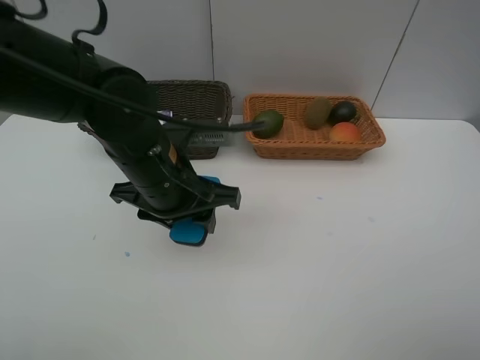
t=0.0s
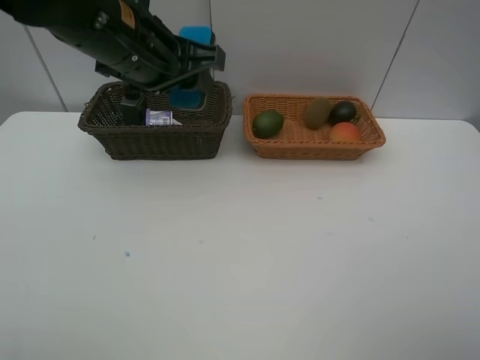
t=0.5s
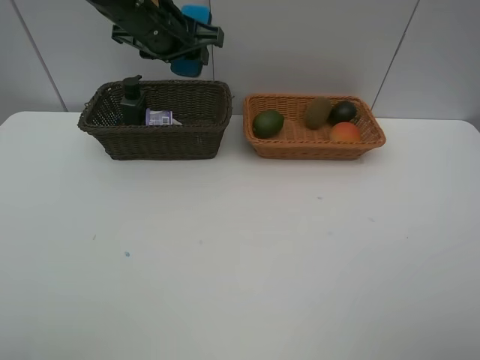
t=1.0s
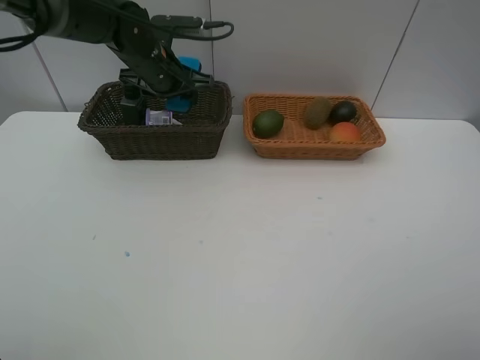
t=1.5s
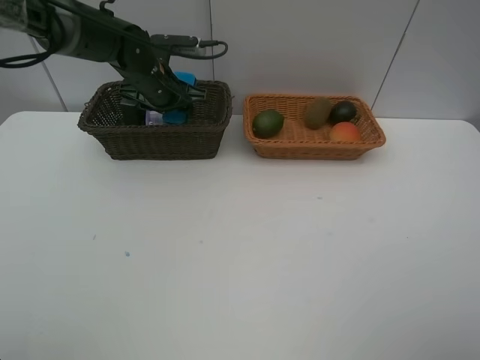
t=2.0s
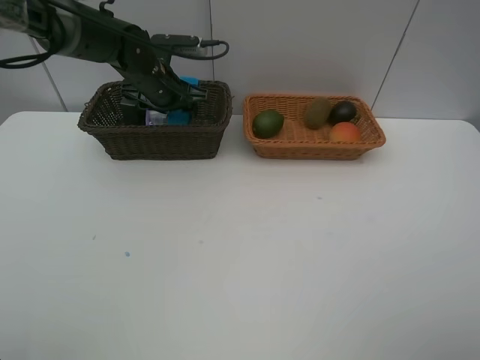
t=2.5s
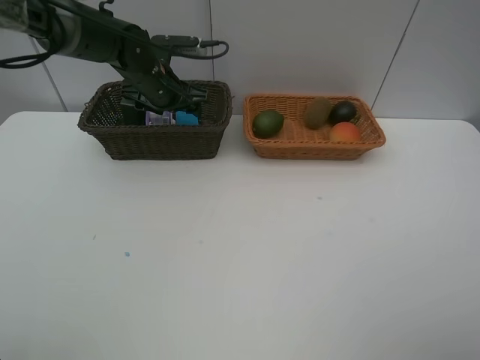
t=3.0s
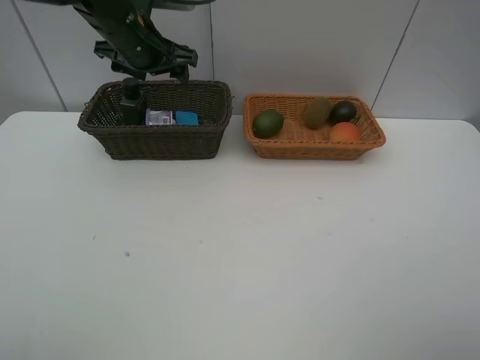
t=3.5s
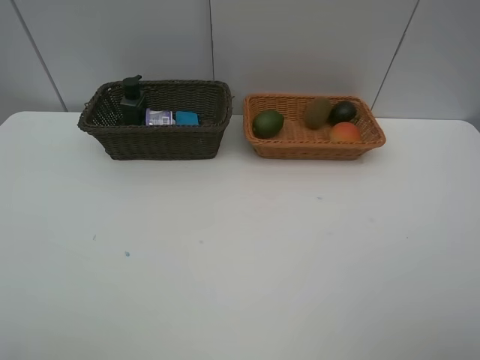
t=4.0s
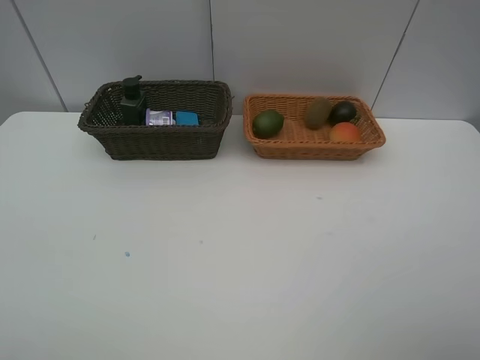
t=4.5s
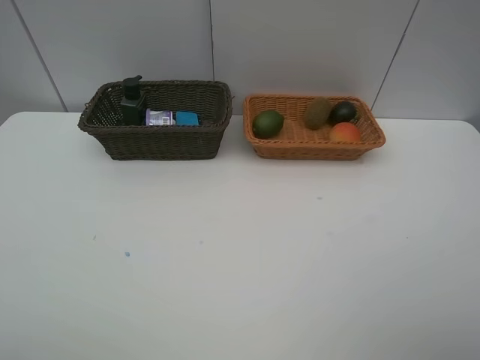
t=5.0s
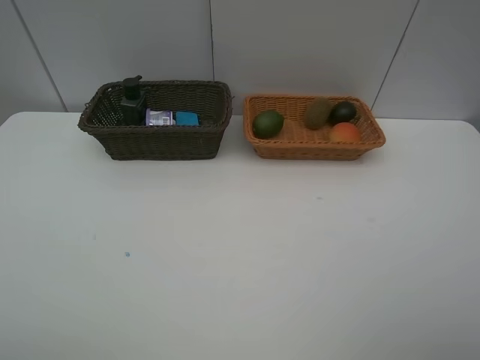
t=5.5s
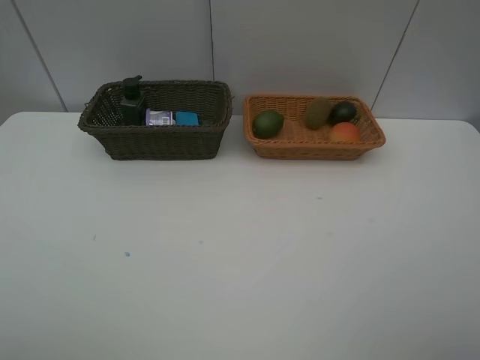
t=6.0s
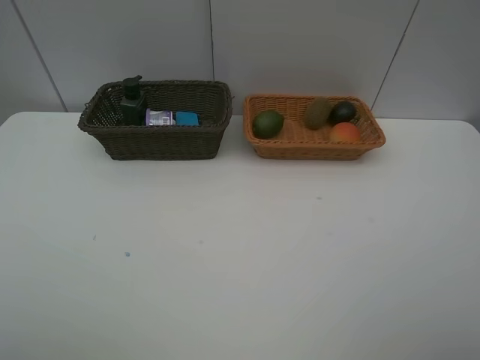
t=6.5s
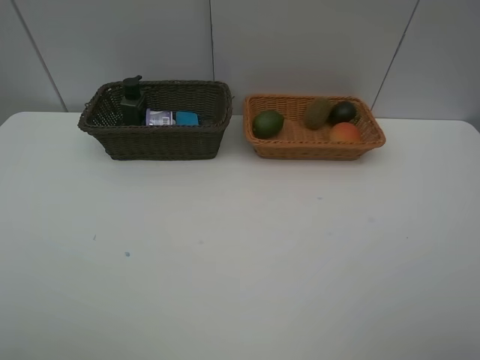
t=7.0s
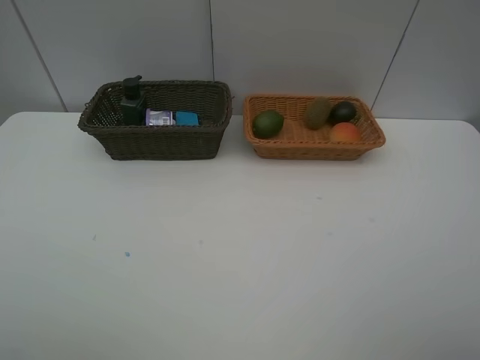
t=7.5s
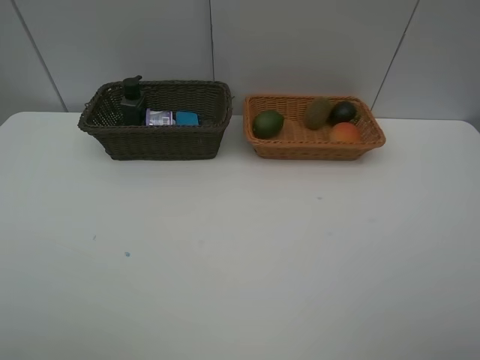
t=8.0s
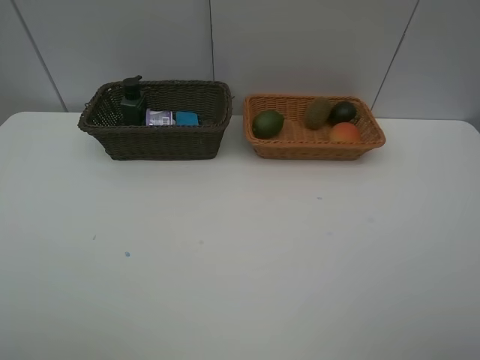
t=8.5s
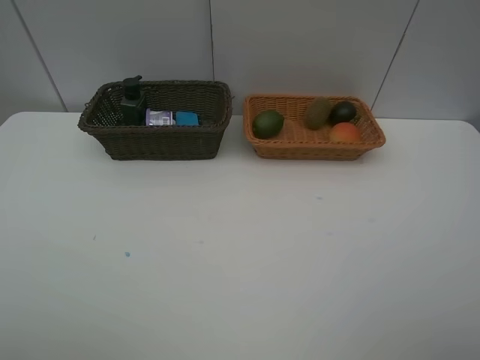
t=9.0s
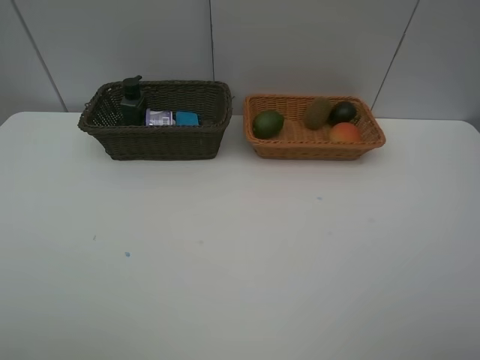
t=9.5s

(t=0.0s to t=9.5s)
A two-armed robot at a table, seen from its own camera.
Task of the whole recording: Place multiple objects separately in different baskets.
Step, t=0.0s - t=3.0s: Place the blackboard eraser in the dark basket with left gripper.
t=0.0s - t=2.0s: The left gripper shifts some 20 cm forward.
t=2.0s - t=4.0s: The left gripper shifts approximately 25 cm upward and backward, and opens its fingers.
t=7.5s - t=9.5s: The two grippers keep their place.
